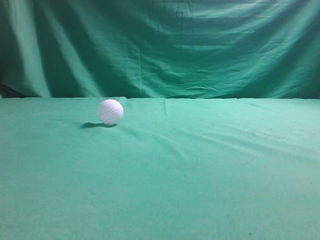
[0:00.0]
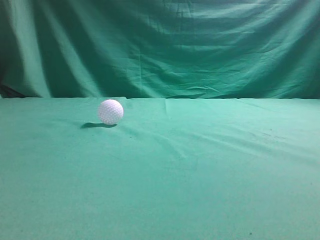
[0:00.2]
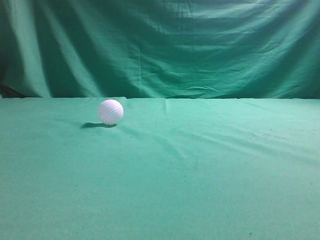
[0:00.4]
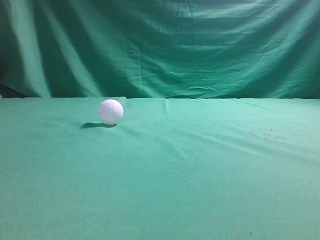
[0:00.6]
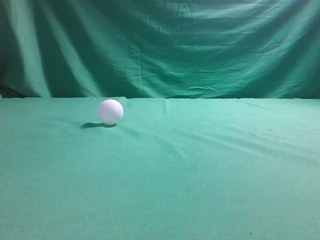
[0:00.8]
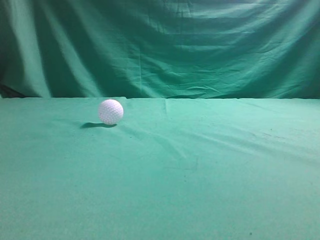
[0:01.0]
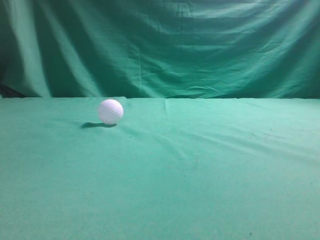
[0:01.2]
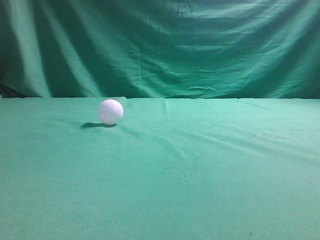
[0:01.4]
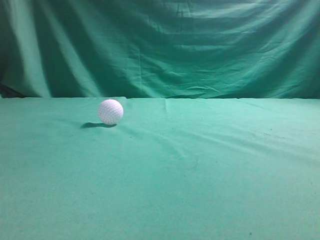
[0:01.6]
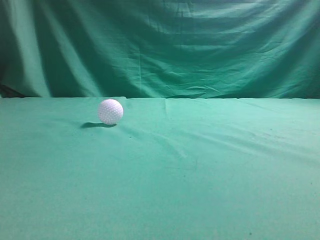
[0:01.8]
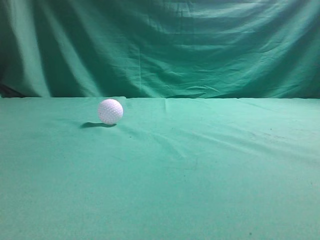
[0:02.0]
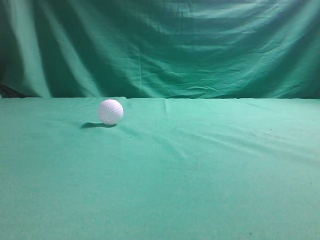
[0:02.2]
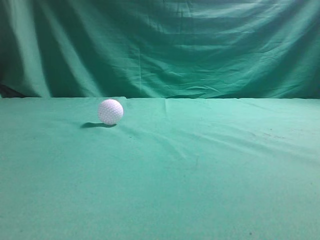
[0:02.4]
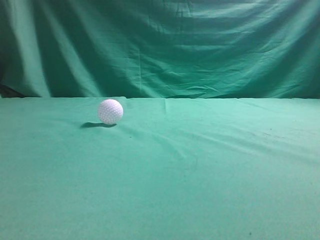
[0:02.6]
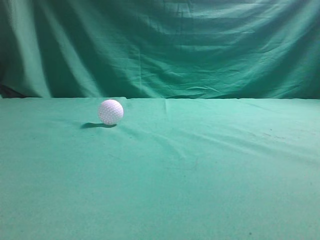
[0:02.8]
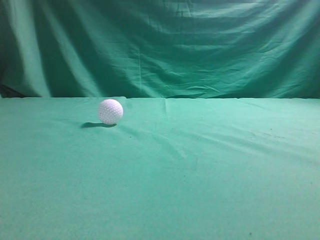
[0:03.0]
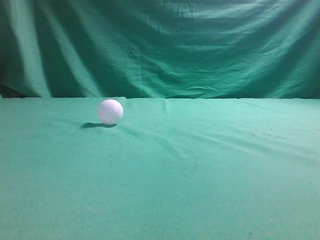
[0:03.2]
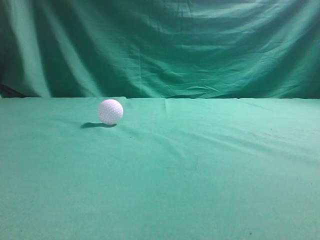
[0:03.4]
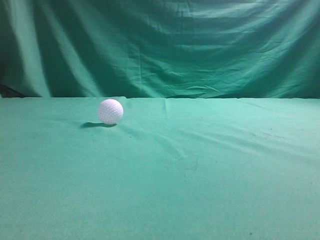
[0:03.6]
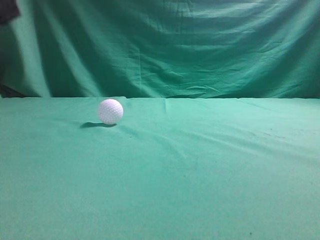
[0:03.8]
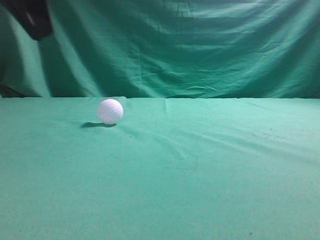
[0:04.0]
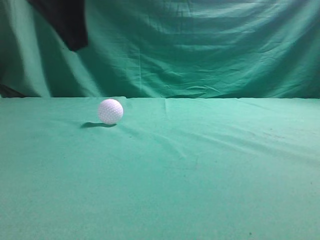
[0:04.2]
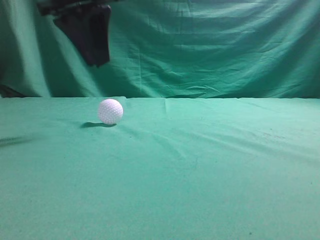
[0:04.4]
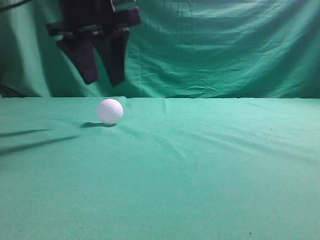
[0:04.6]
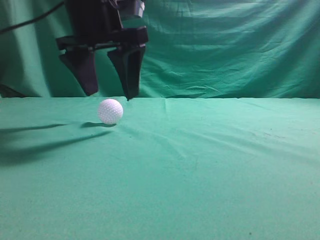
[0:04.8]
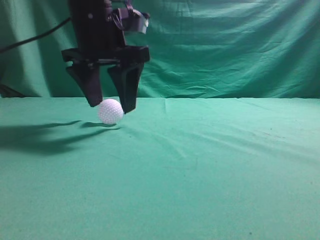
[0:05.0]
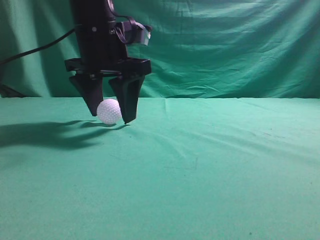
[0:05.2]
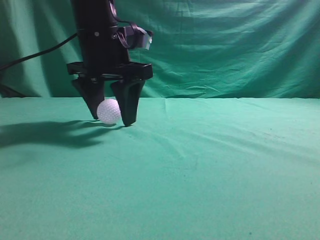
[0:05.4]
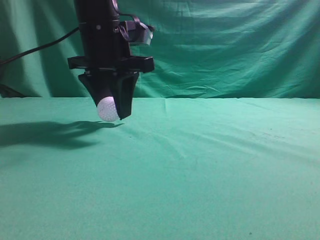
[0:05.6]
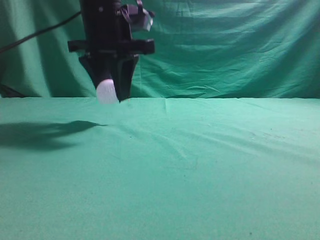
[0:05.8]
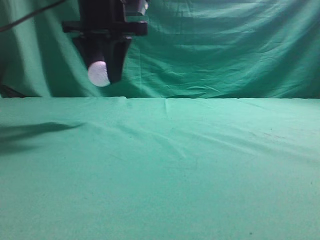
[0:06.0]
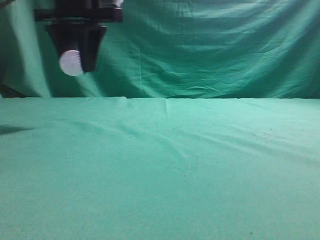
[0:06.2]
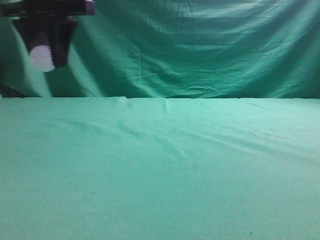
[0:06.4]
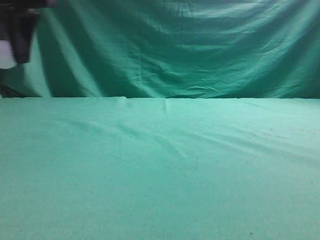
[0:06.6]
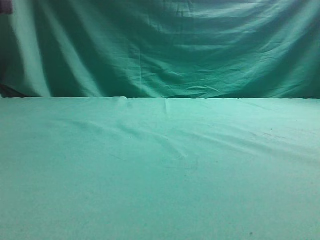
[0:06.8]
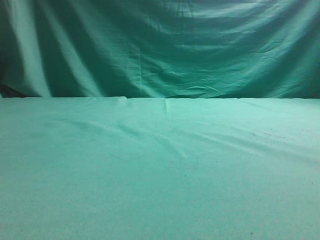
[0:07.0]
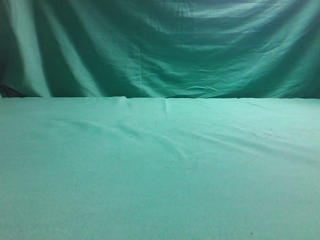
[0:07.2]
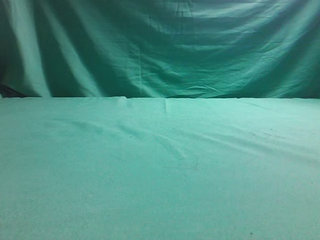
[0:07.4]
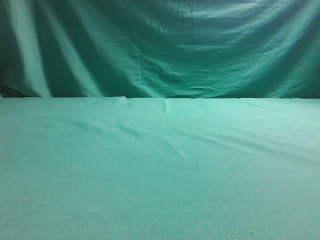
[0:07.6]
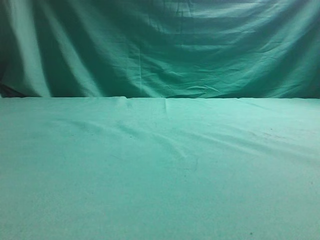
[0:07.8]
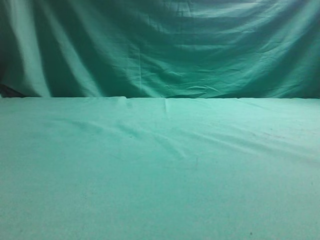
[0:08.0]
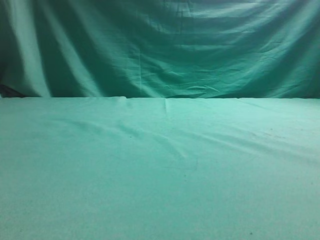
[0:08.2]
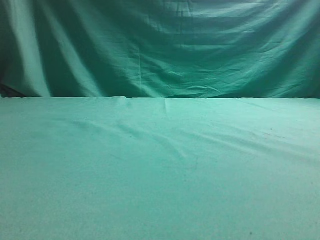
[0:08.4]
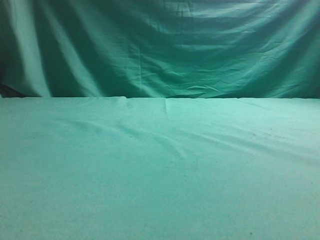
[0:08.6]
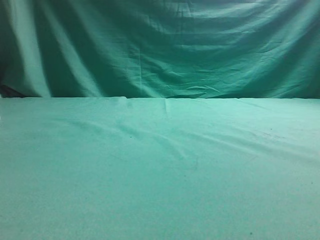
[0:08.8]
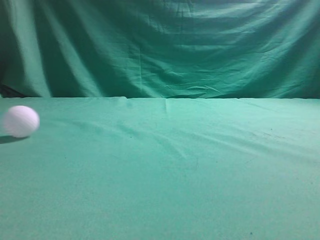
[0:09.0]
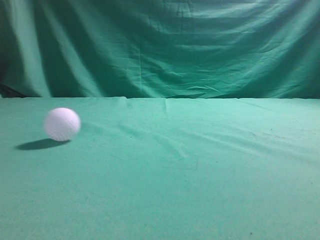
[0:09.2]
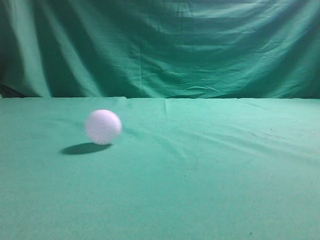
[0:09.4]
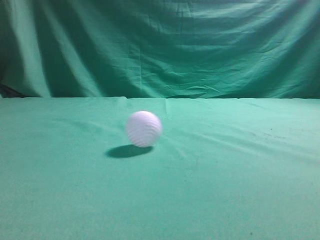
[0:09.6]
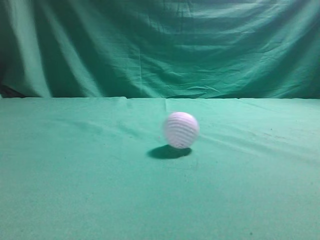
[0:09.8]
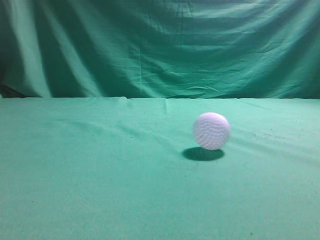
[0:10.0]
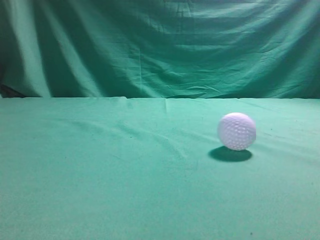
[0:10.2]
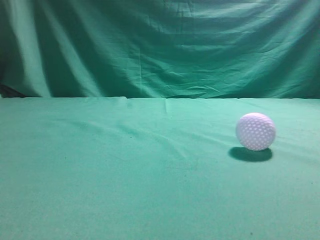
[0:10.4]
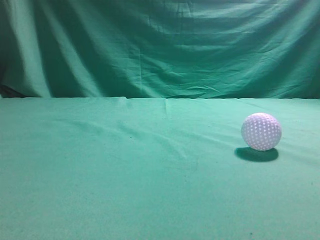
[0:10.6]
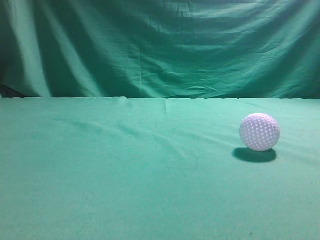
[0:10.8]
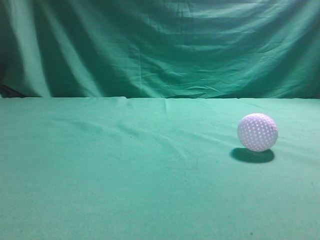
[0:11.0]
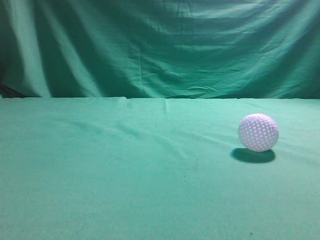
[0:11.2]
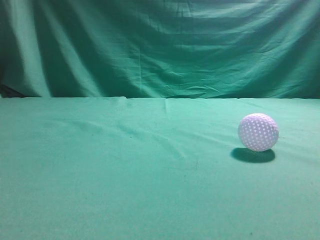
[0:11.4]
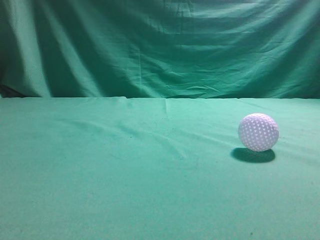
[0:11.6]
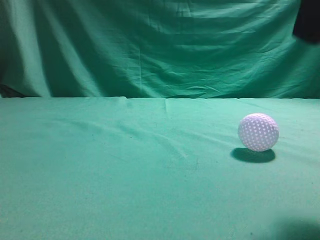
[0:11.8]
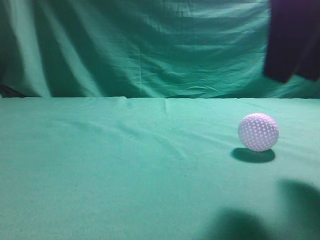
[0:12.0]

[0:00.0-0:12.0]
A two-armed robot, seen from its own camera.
Task of the whole recording: pick up the ball and place it on the plate, then pick up the ball from the plate and put it in the center of the table.
Step, 0:00.0 to 0:05.8: Grab the spherical object with your left arm.
Step, 0:06.0 to 0:08.4: Place the sphere on the white object.
0:03.0 to 0:04.4: The left gripper shifts some 30 cm forward and to the right.
0:04.4 to 0:06.0: The left gripper moves forward, about 5 cm, reaches some 10 cm downward, then returns, and opens its fingers.
0:06.0 to 0:07.6: The left gripper moves to the left, some 25 cm.
0:07.6 to 0:09.0: The left gripper is displaced upward and to the right by some 15 cm, and closes up.
0:09.0 to 0:10.4: The left gripper heads backward, covering approximately 30 cm, while the right gripper shifts about 5 cm upward.
0:10.4 to 0:12.0: The right gripper travels to the left and forward by some 20 cm, and opens its fingers.

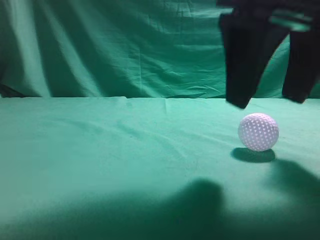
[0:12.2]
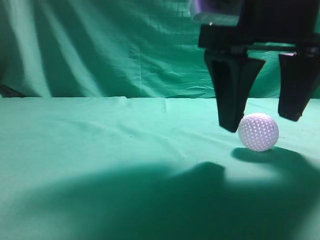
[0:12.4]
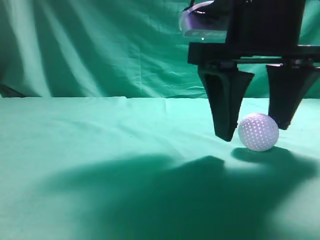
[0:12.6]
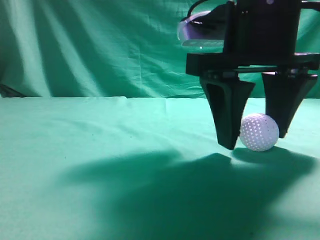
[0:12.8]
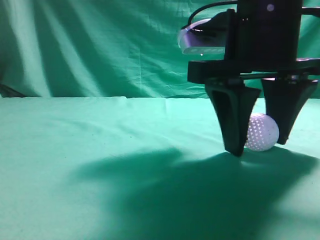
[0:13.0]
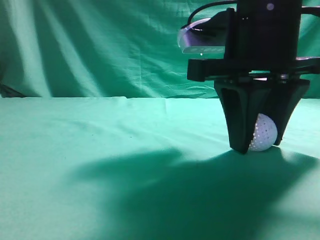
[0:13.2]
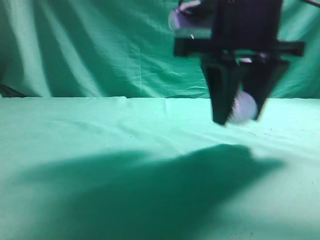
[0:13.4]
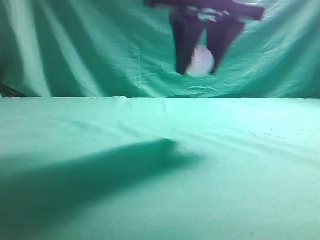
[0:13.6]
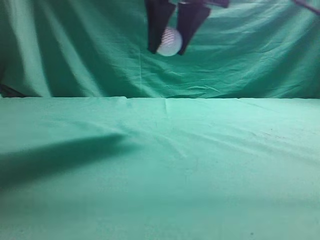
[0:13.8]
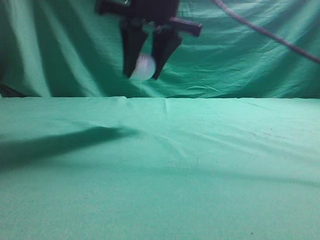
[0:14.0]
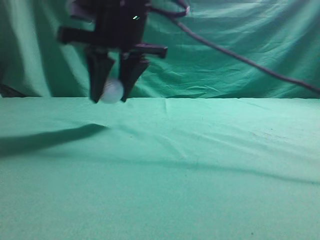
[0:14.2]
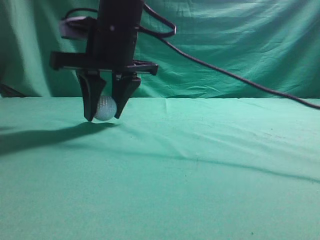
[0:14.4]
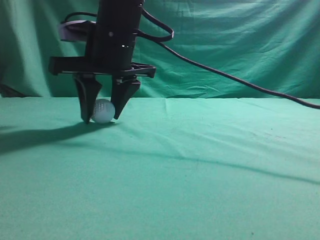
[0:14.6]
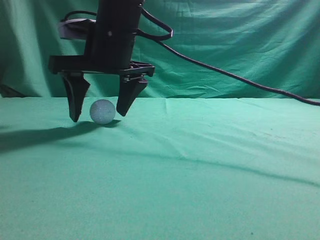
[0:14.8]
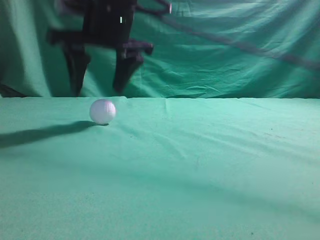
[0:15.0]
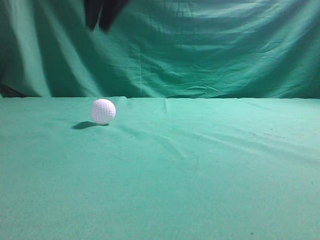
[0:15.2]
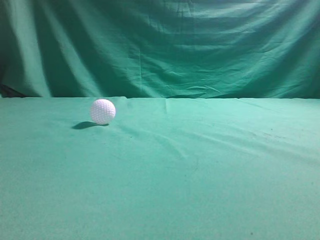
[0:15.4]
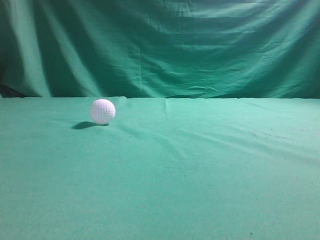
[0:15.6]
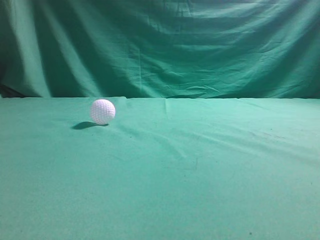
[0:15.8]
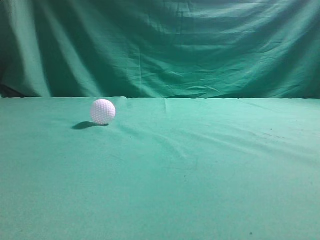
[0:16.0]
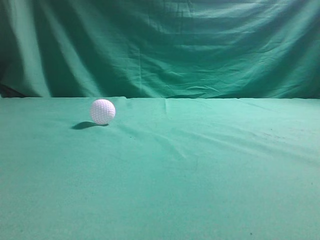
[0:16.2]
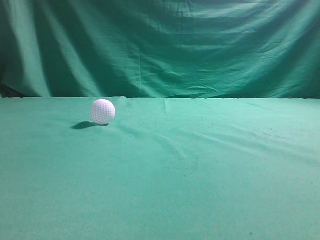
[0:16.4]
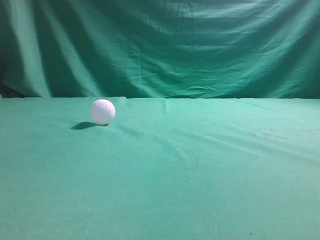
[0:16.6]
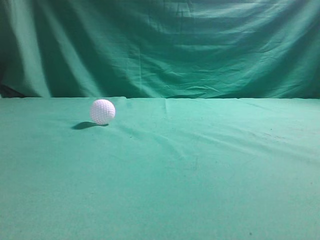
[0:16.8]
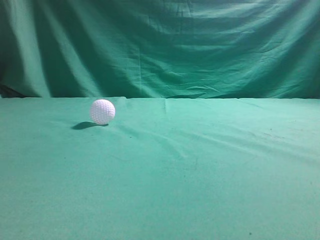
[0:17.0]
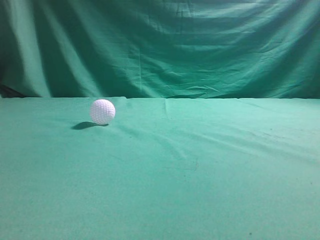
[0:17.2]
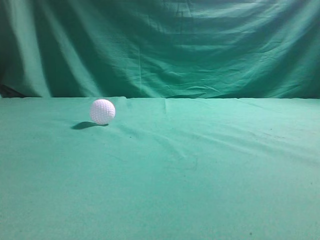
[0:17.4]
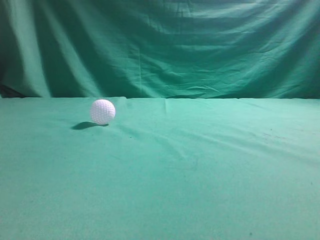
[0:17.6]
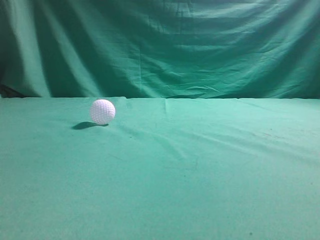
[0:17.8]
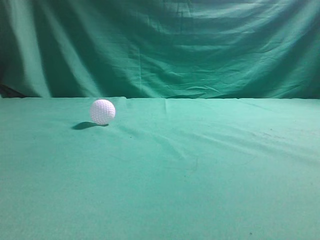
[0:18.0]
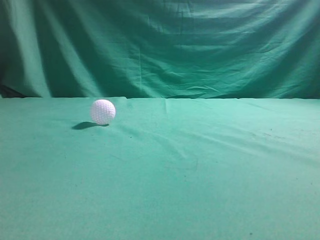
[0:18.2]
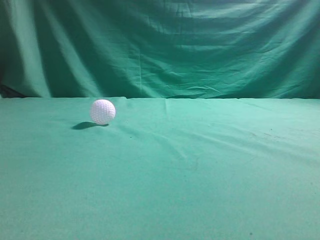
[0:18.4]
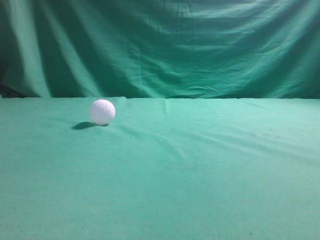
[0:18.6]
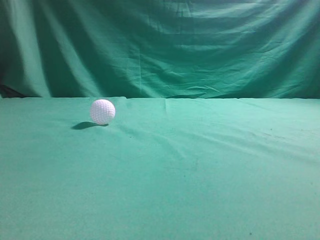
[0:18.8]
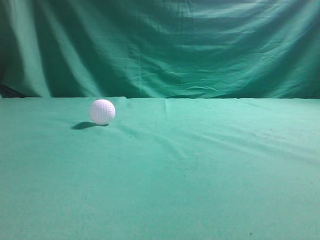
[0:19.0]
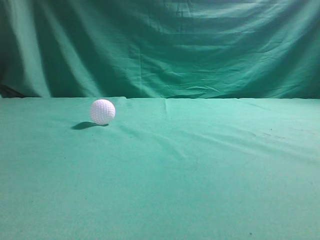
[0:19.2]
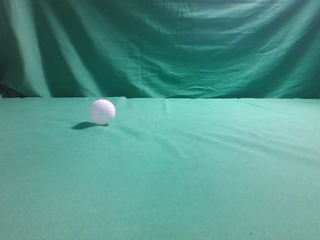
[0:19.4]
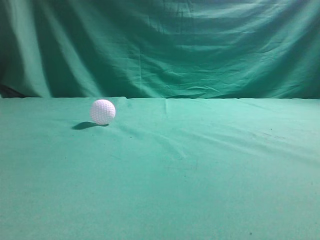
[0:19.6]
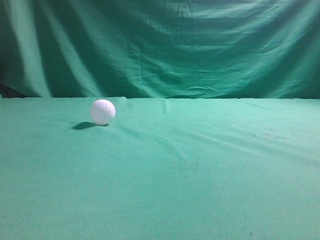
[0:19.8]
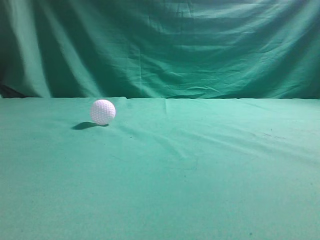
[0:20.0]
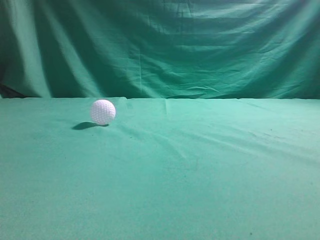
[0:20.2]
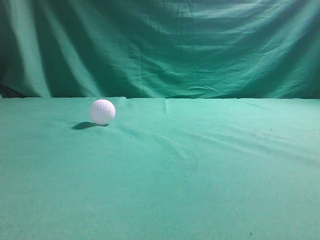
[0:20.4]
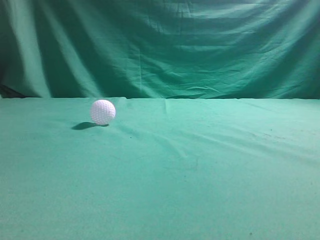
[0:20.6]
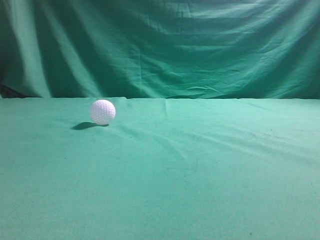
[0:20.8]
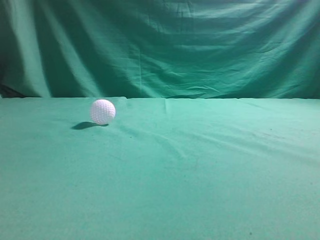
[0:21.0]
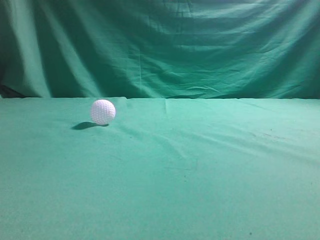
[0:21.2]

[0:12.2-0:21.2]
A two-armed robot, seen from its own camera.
Task of the whole recording: pick up the ball and place it on the plate, then pick up the ball from the plate and put it in the center of the table.
Step, 0:13.6 to 0:15.0: Put the picked-up object on the table.
0:12.2 to 0:13.8: The right gripper shifts roughly 15 cm forward, to the left and upward, and closes up.
0:13.8 to 0:15.2: The right gripper is displaced to the left by some 10 cm, moves some 10 cm downward and comes back, and opens, then closes once more.
0:15.2 to 0:16.6: The left gripper heads downward, covering approximately 5 cm.
